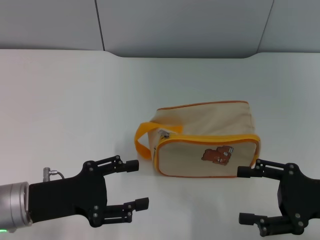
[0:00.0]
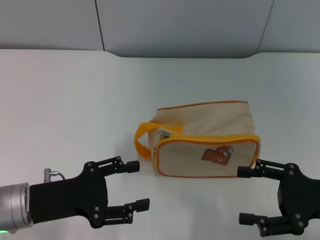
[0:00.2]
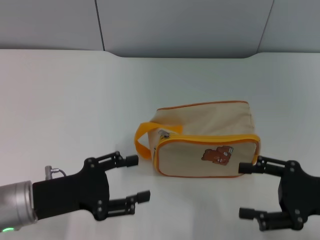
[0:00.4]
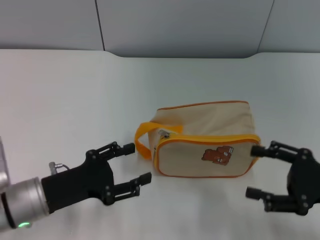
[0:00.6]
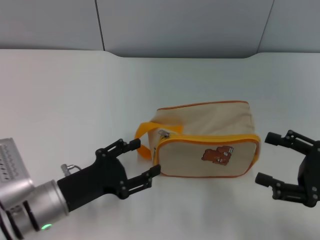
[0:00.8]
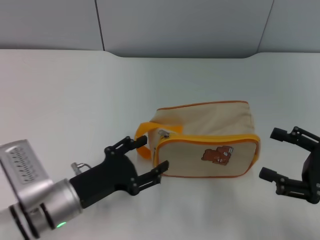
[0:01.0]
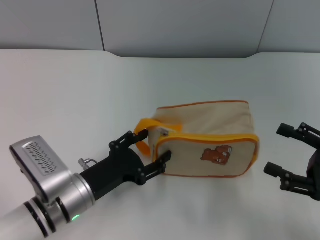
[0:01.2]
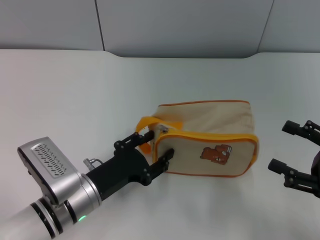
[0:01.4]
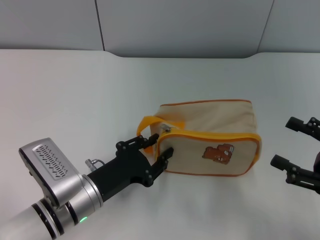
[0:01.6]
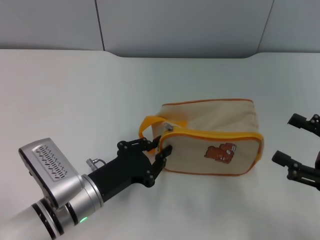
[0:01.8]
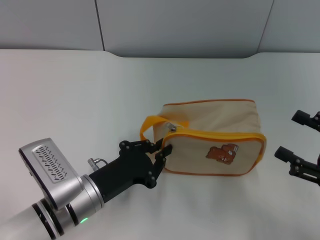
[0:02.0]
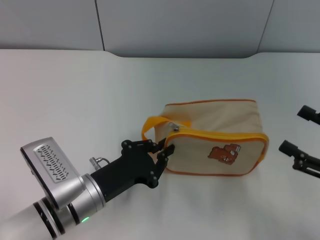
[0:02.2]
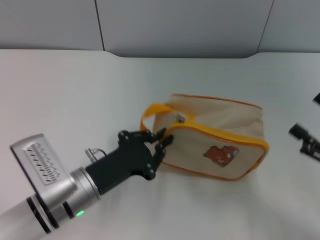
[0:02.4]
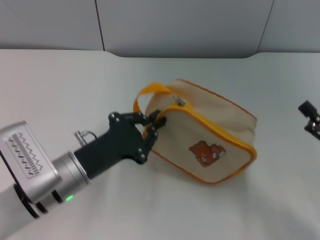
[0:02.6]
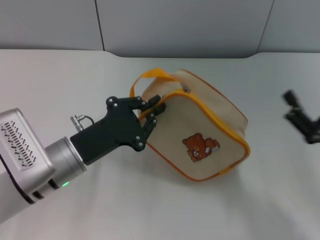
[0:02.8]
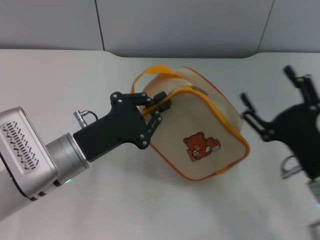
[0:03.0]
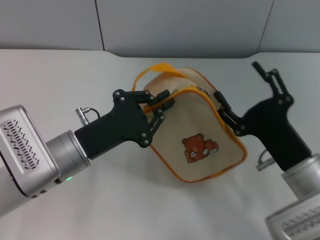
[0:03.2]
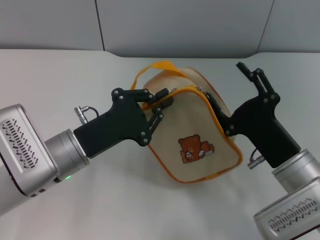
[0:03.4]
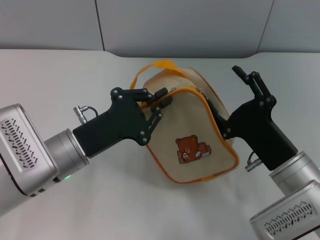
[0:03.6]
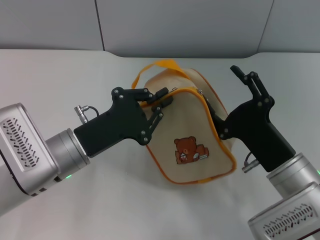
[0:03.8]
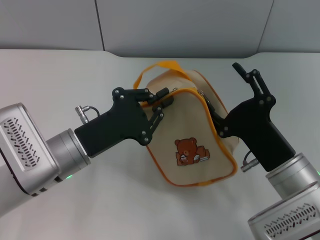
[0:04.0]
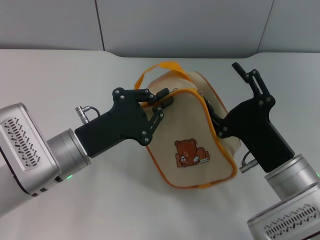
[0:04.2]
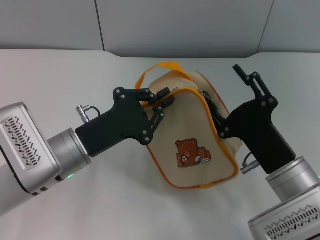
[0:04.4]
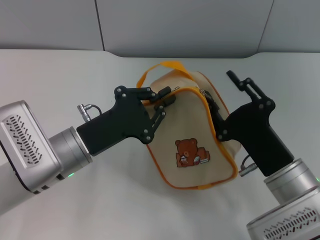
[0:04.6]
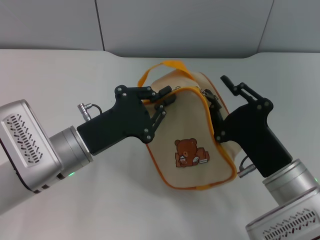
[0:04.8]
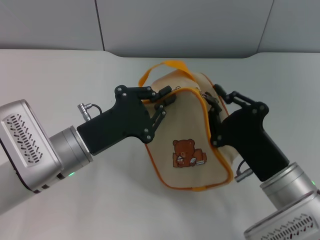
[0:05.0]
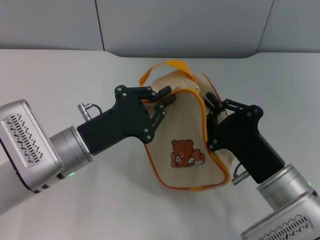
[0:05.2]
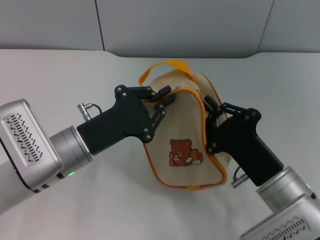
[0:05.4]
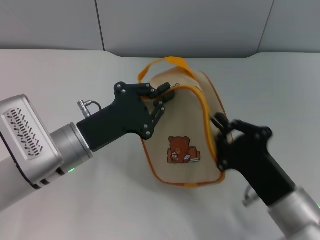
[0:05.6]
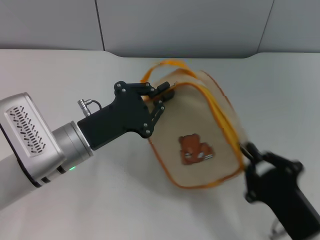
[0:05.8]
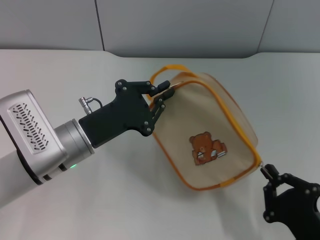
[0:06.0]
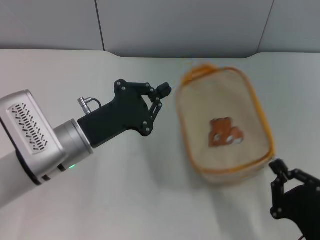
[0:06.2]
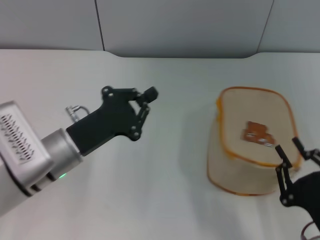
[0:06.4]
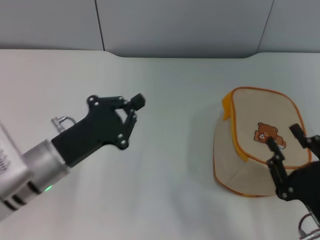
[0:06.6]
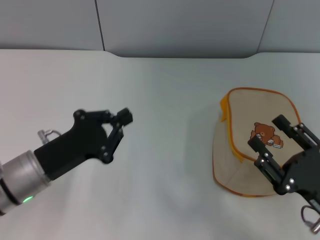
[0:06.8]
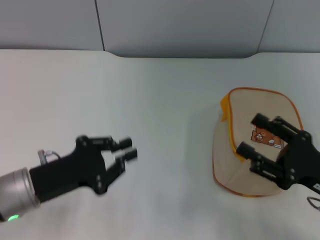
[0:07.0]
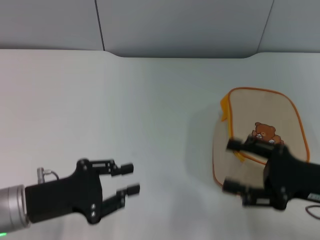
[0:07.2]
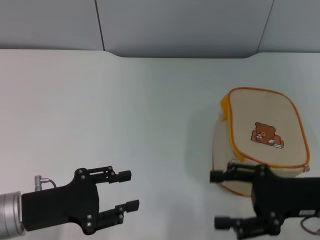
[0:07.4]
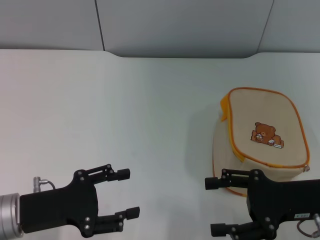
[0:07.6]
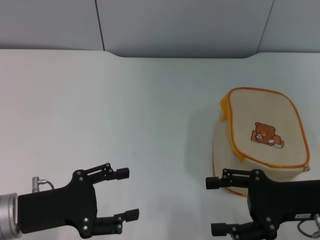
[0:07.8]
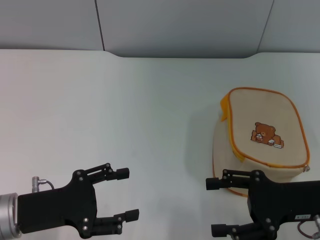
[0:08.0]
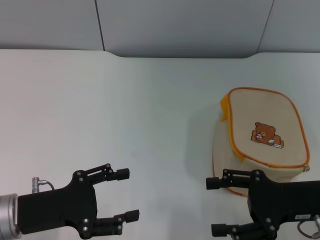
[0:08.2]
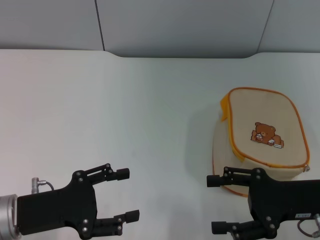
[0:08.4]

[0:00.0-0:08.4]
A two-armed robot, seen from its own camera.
Step, 0.0 to 2.8 s: Pick up the bag with left gripper.
Step, 3.0 to 6.4 s: Unzip the zipper of bag with right gripper.
0.0 to 1.4 s: The left gripper moves to the right and downward, roughly 10 cm.
1.4 to 2.8 s: The right gripper goes about 5 cm to the left; the left gripper heads upward, covering about 5 cm, and closes.
2.8 to 4.2 s: The right gripper is displaced to the left by some 10 cm.
4.2 to 5.6 s: The right gripper ends up approximately 5 cm from where it was, and closes up.
5.6 to 7.0 s: The right gripper travels to the right by approximately 10 cm, and opens up; the left gripper heads to the left and backward, covering some 10 cm.
7.0 to 8.4 s: The left gripper opens.

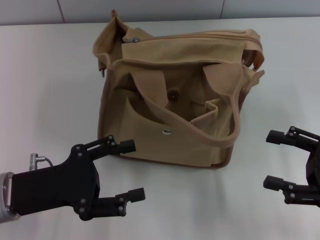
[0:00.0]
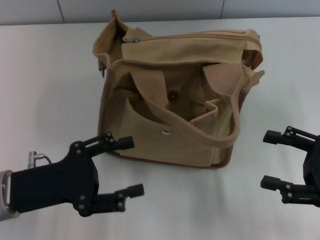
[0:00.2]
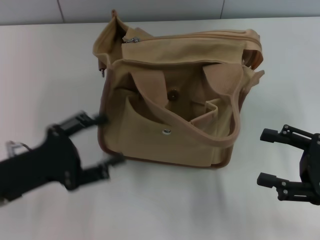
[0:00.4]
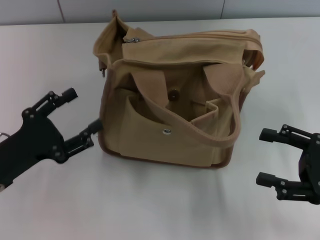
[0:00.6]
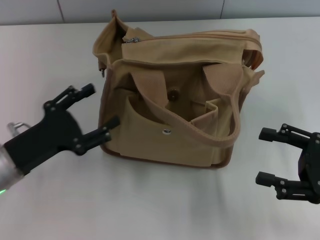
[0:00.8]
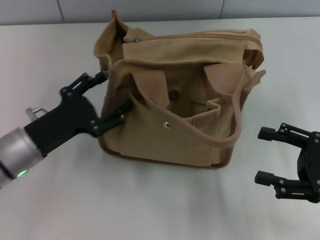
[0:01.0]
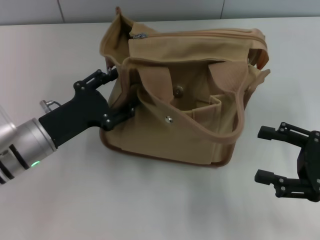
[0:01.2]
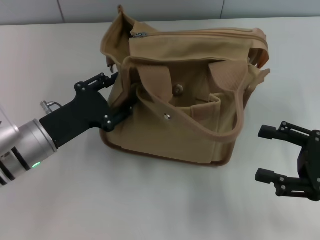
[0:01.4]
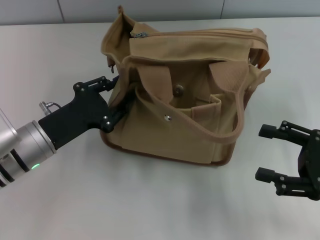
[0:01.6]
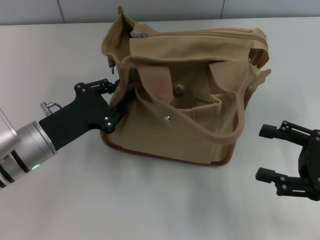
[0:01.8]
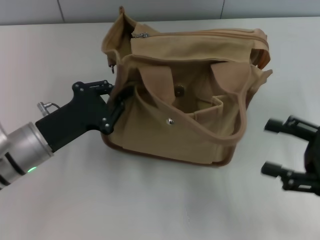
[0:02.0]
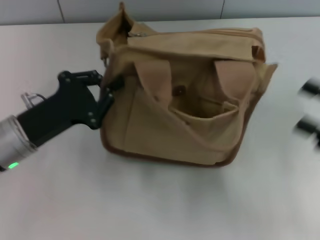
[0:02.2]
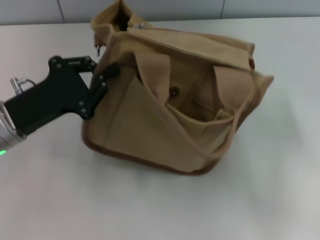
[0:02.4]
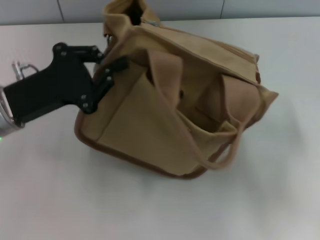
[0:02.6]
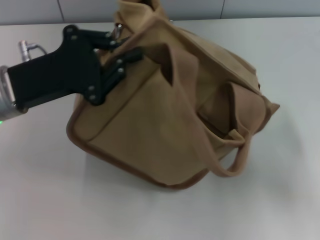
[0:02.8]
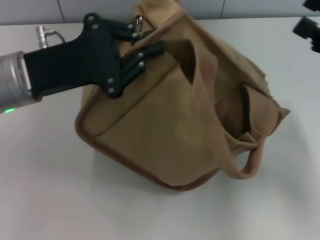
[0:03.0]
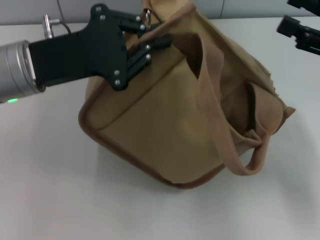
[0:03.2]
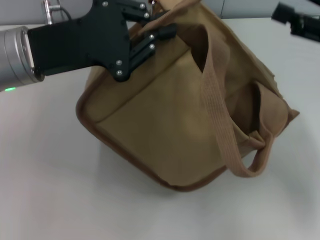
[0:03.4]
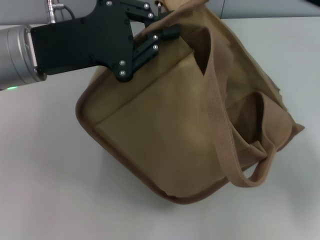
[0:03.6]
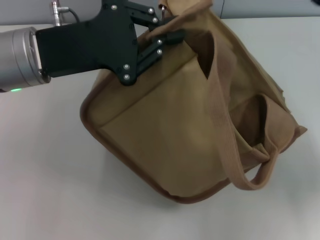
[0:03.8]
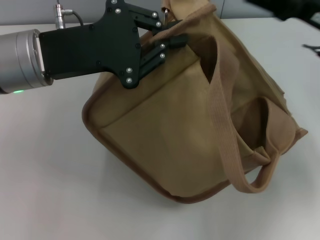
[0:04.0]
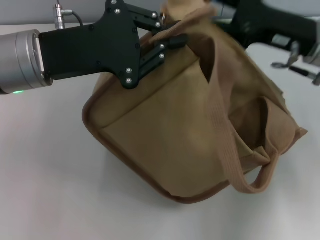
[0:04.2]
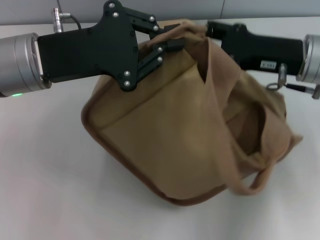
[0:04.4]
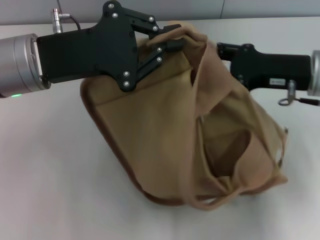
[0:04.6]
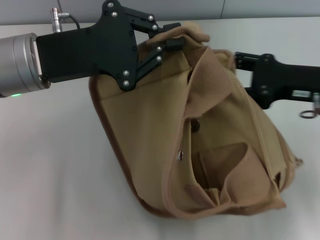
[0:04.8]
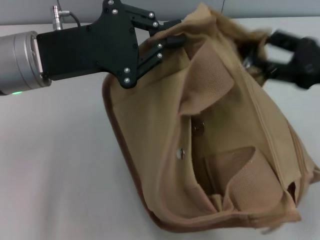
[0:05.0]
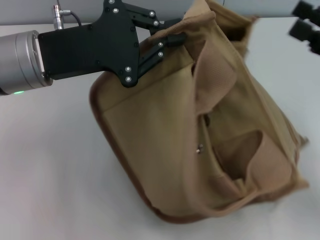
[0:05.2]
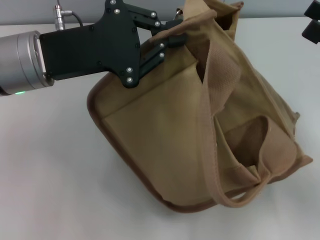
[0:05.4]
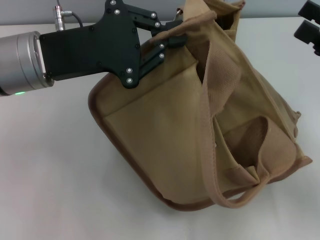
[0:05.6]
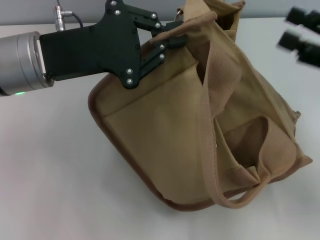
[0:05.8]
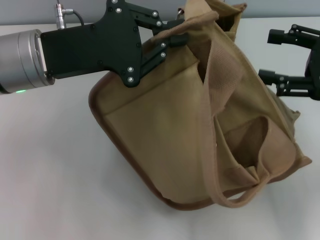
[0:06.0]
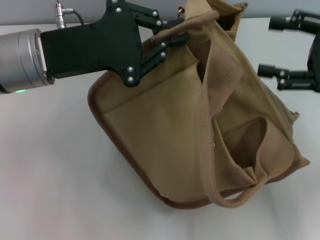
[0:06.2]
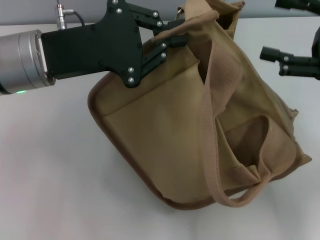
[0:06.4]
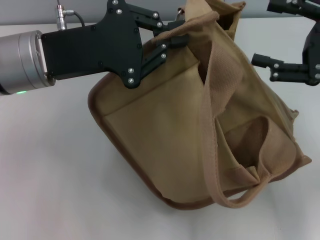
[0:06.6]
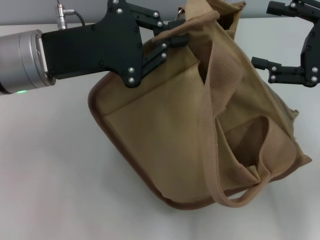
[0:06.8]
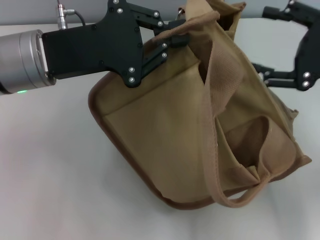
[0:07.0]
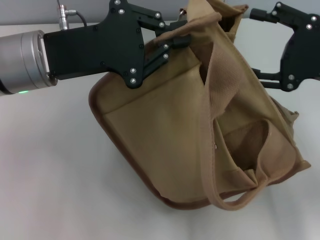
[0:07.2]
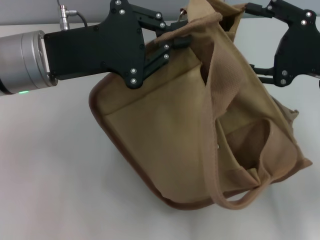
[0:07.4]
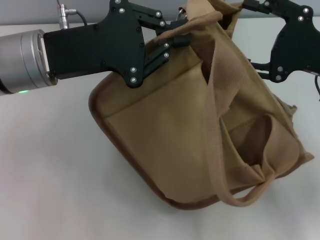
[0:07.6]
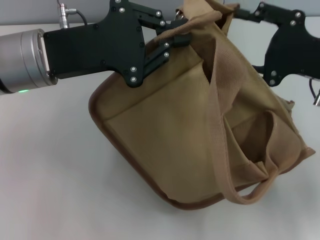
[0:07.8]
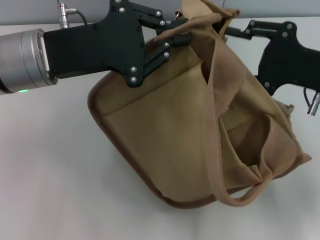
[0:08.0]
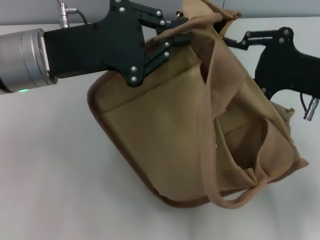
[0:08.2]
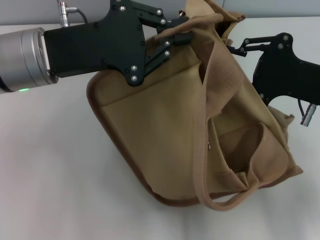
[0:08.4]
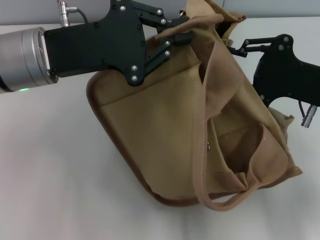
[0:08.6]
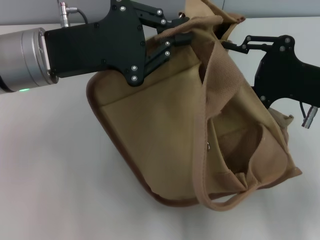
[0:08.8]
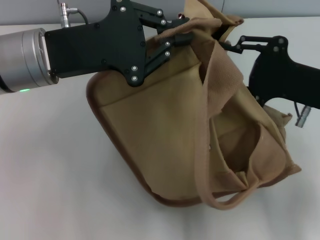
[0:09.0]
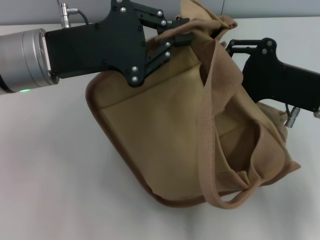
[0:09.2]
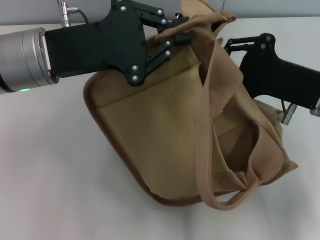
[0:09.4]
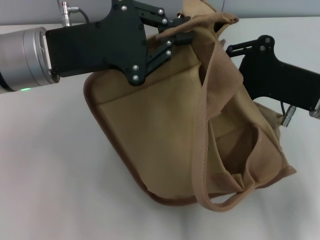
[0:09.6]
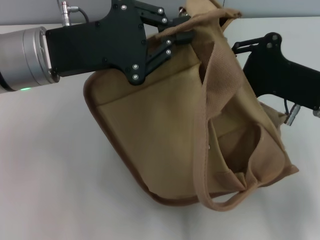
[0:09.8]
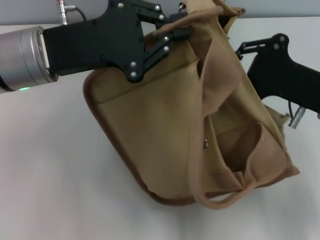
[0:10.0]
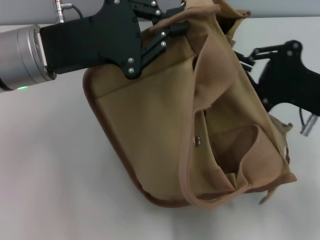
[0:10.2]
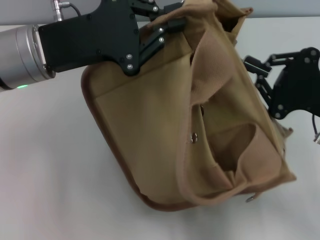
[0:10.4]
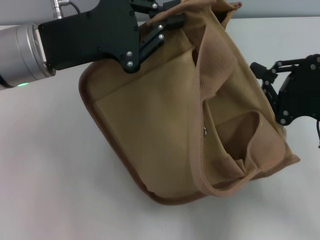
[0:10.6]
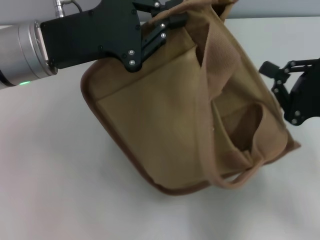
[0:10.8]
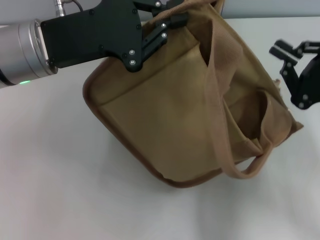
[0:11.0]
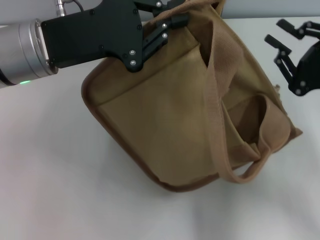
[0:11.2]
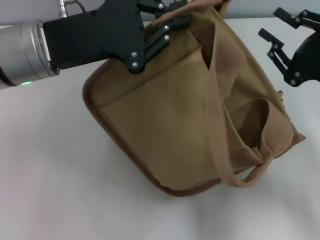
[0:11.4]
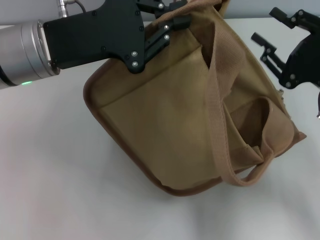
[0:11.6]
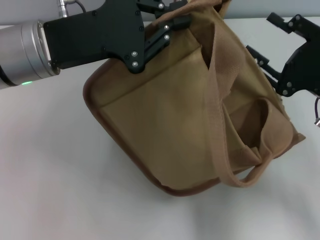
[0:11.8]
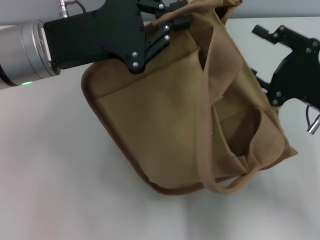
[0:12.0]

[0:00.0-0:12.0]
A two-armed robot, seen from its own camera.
0.0 to 1.6 s: The left gripper goes roughly 5 cm forward.
1.6 to 3.0 s: The left gripper heads upward, covering about 10 cm, and closes its fingers, while the right gripper moves upward and forward, some 10 cm.
3.0 to 4.4 s: The right gripper moves to the left and forward, some 10 cm.
4.4 to 6.0 s: The right gripper moves to the right and backward, approximately 10 cm.
7.6 to 9.0 s: The right gripper closes its fingers.
9.0 to 10.4 s: The right gripper closes up.
10.4 to 12.0 s: The right gripper opens its fingers.

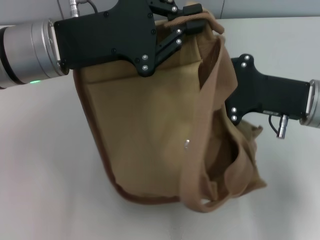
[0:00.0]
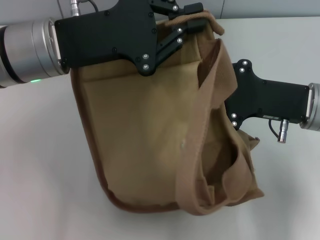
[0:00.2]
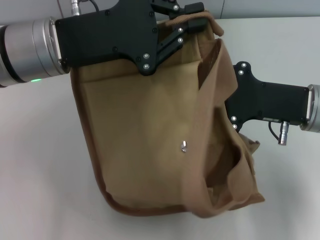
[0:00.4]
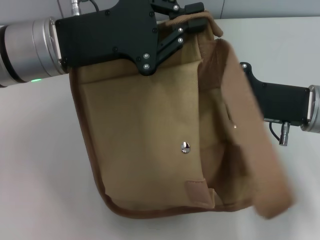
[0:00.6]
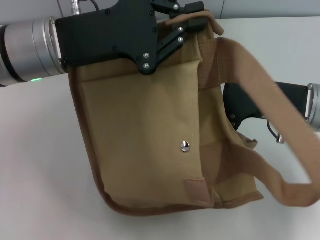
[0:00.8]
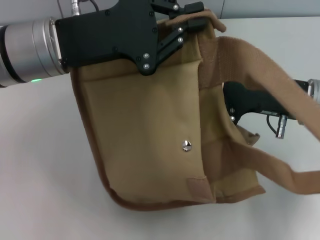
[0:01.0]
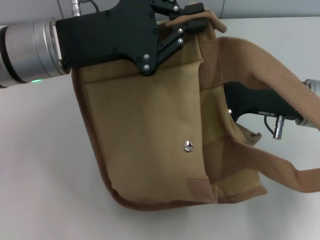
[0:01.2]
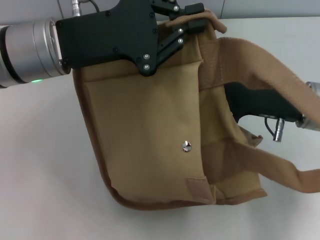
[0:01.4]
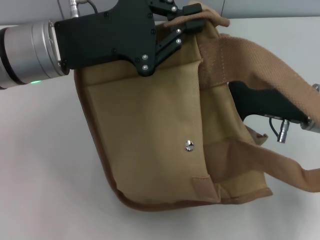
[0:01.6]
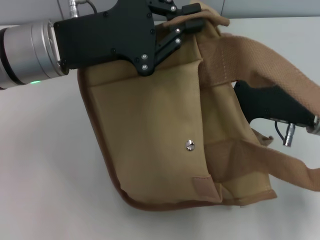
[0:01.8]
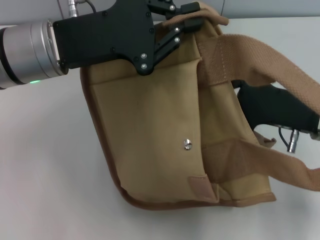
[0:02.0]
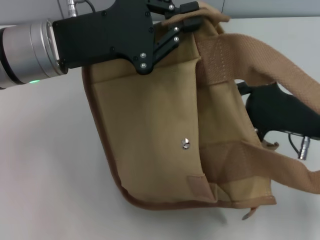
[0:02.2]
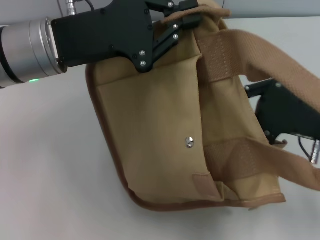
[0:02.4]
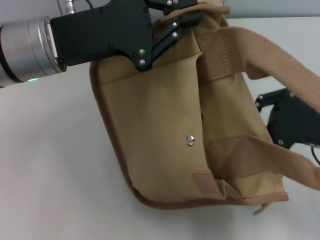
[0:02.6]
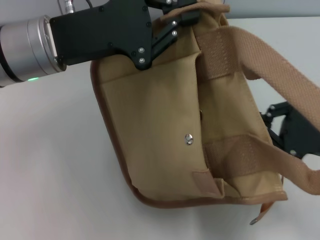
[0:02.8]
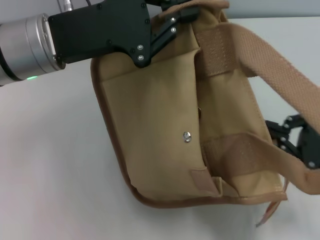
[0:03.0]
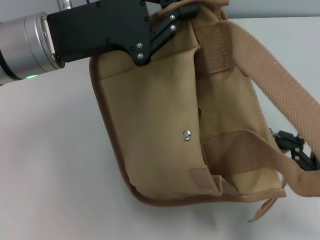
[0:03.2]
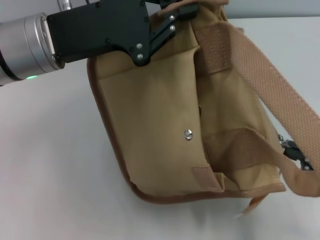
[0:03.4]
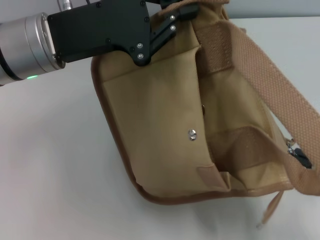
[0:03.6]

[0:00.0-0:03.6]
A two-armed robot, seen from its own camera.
0.0 to 1.8 s: The right gripper closes.
1.8 to 3.6 s: The right gripper shifts roughly 15 cm to the right and backward.
